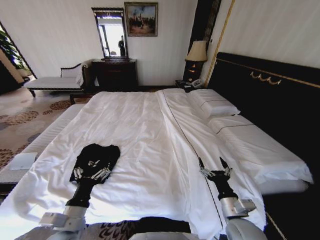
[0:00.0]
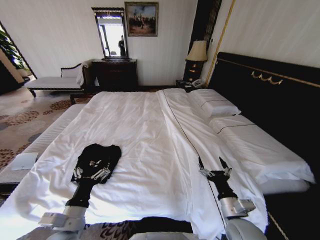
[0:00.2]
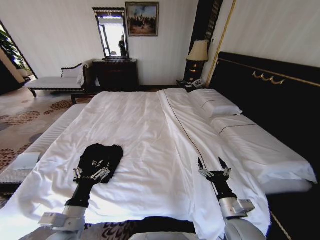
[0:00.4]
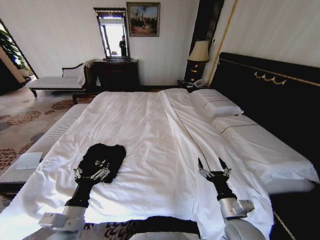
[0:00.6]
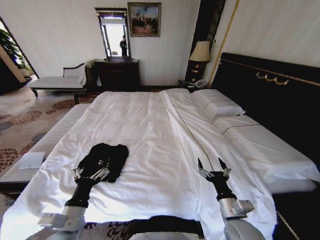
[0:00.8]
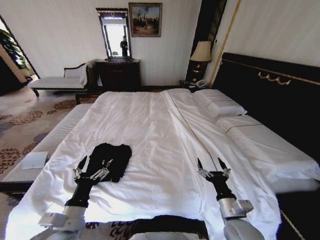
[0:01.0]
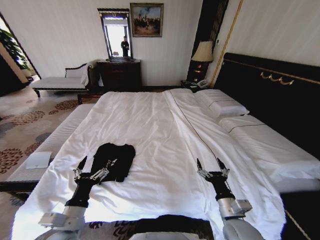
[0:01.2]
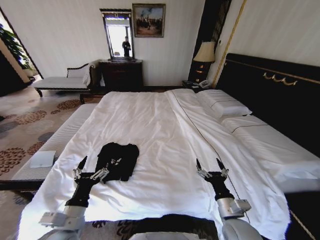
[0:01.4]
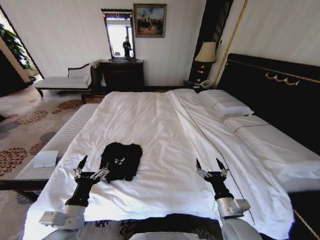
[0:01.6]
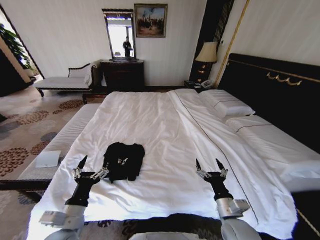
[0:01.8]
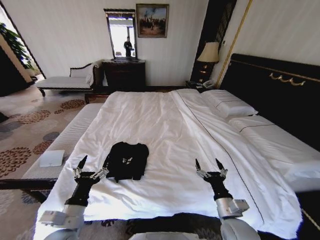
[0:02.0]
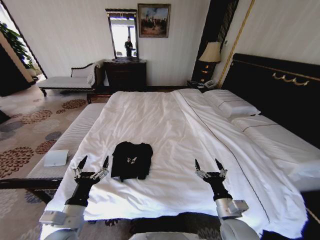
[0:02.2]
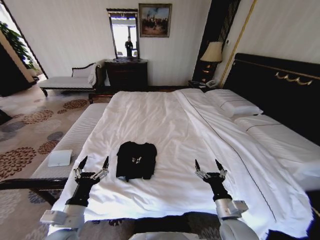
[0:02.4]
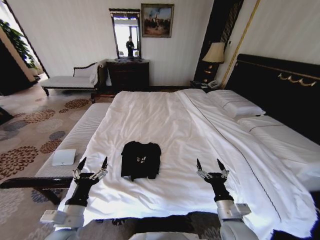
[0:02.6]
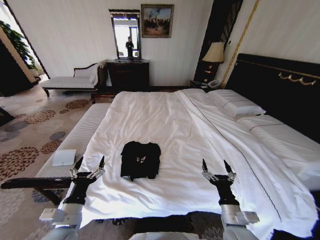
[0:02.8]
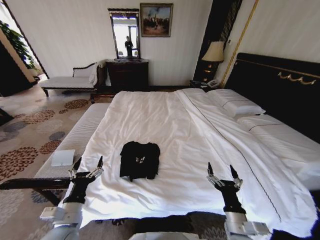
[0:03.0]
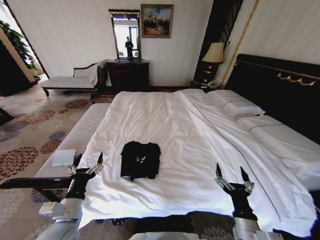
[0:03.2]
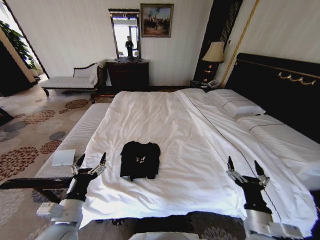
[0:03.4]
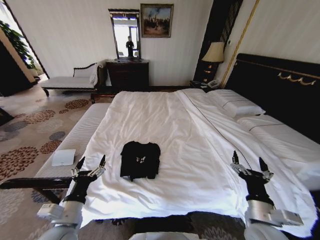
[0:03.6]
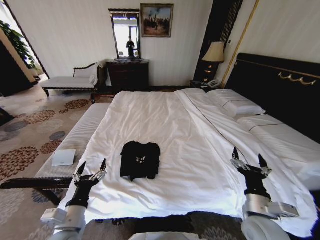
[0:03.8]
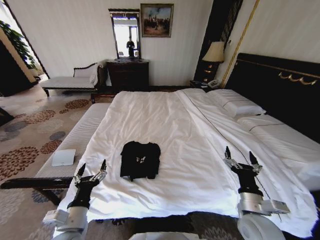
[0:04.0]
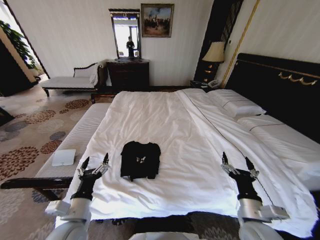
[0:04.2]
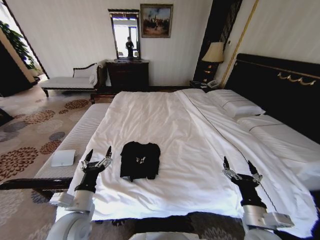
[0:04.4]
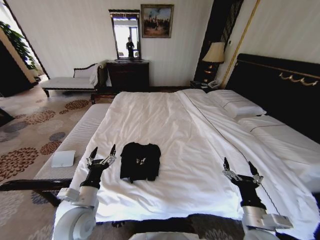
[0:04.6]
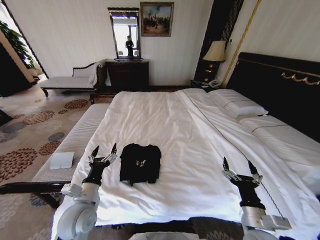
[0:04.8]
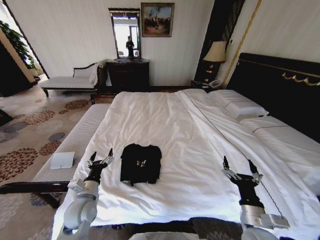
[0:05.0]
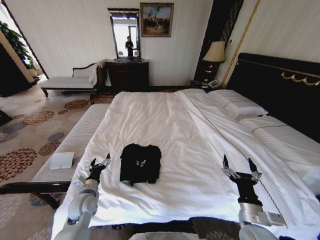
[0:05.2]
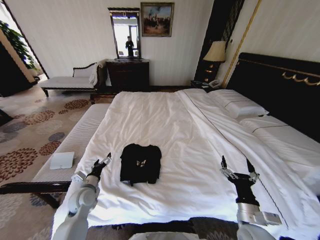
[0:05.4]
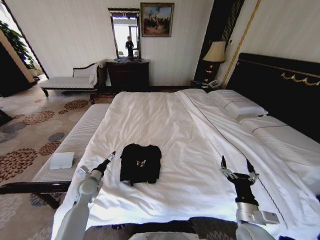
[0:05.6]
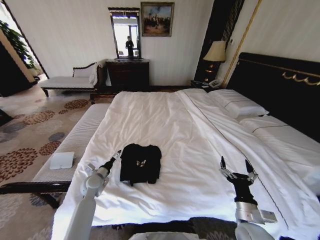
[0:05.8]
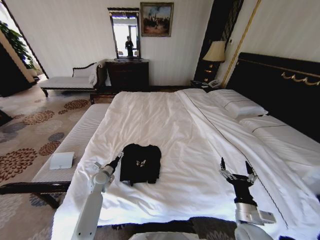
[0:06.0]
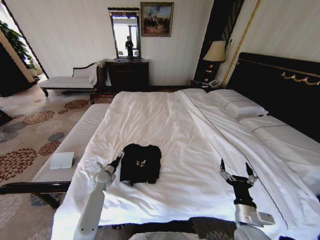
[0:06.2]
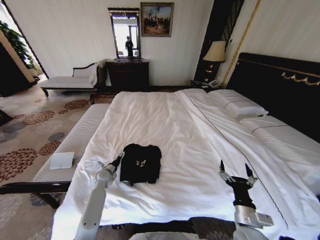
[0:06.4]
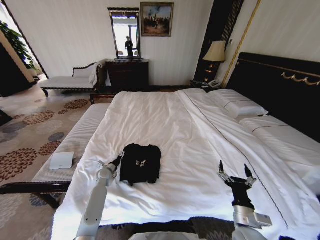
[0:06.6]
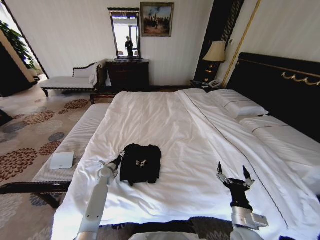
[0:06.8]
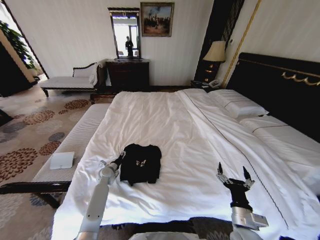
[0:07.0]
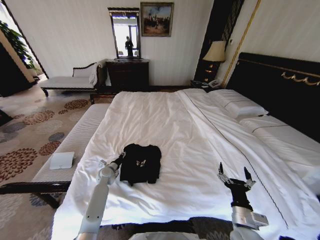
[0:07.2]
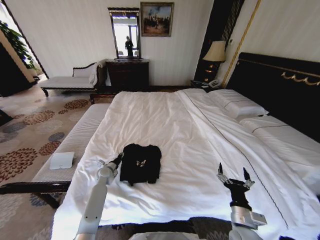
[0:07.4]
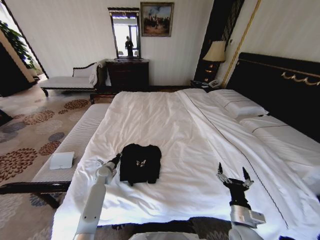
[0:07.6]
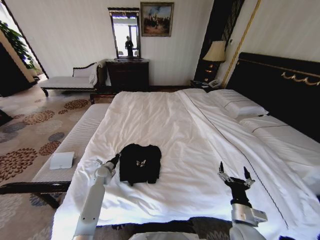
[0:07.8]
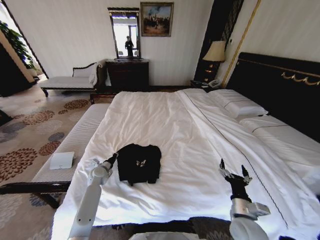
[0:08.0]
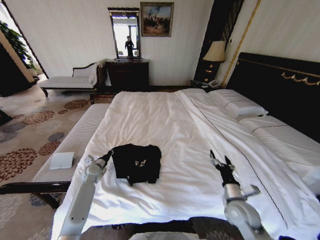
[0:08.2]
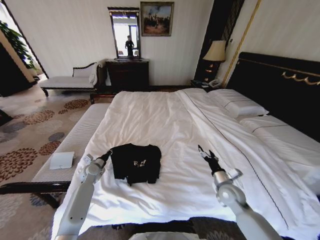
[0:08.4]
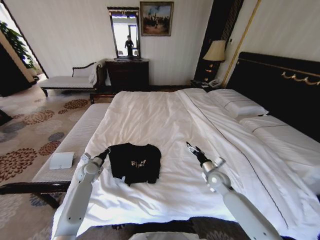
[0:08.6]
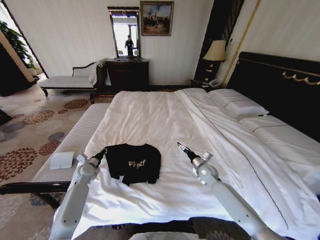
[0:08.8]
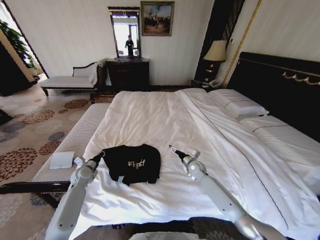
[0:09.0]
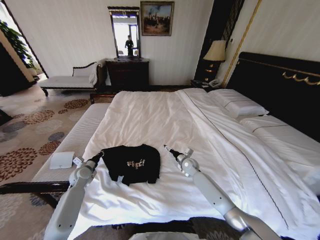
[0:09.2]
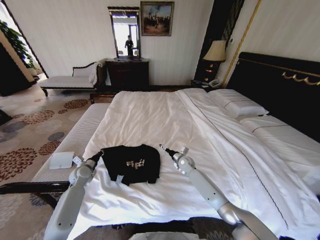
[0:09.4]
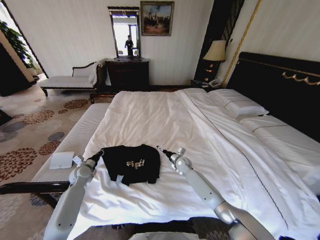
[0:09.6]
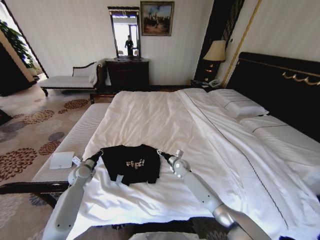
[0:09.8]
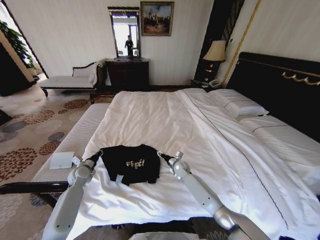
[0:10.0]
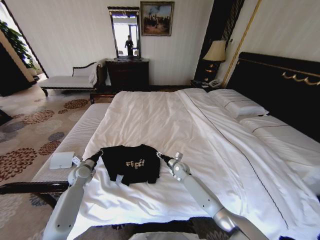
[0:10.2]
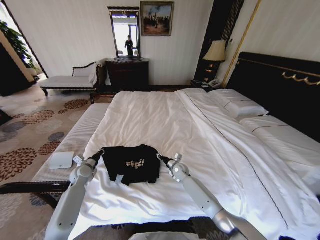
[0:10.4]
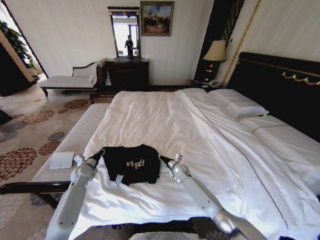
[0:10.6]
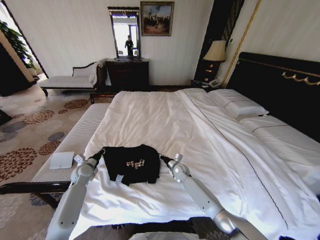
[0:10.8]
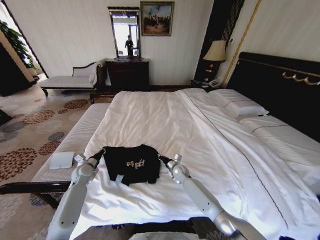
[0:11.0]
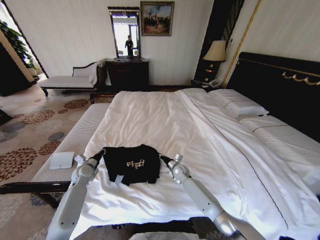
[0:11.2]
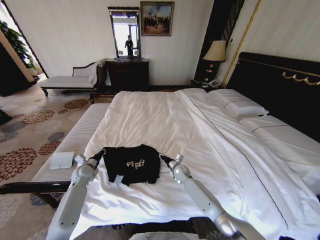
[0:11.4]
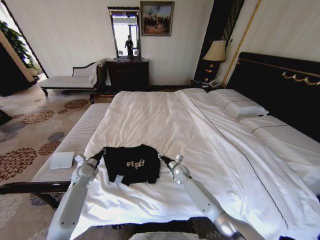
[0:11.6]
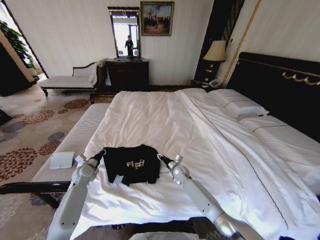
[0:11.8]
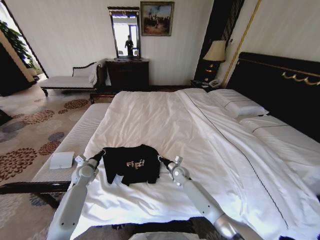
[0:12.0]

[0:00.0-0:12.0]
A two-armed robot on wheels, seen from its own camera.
Task of the whole recording: Fold the clothes on the bed.
0:03.0 to 0:04.4: The left gripper shifts by roughly 5 cm; the right gripper changes place by some 5 cm.
0:04.4 to 0:06.0: The left gripper is displaced forward and downward by about 25 cm.
0:06.0 to 0:07.6: The left gripper closes up.
0:07.6 to 0:09.0: The right gripper goes some 30 cm forward. Meanwhile the left gripper is displaced to the left by some 10 cm.
0:09.0 to 0:10.4: The right gripper goes approximately 10 cm to the left, and closes.
0:10.4 to 0:12.0: The grippers make only small movements.

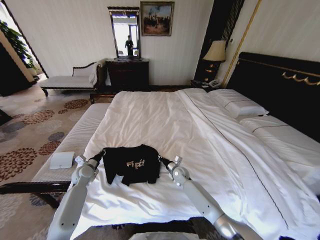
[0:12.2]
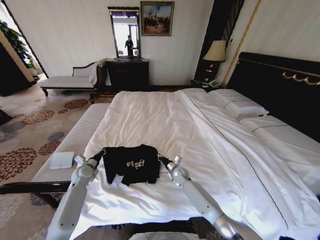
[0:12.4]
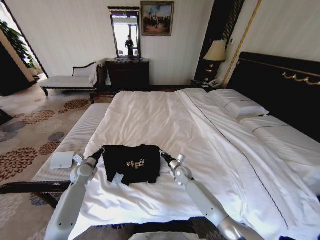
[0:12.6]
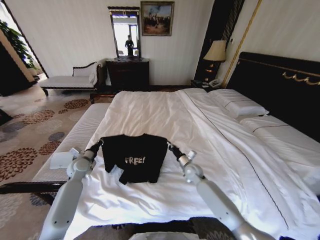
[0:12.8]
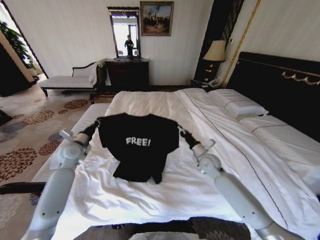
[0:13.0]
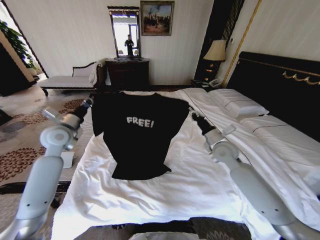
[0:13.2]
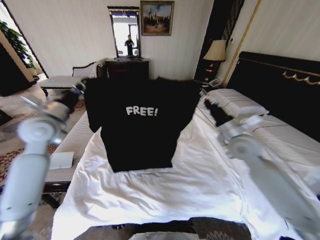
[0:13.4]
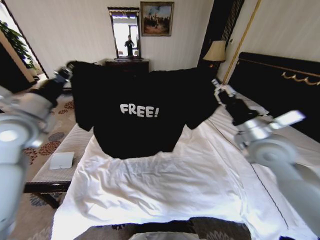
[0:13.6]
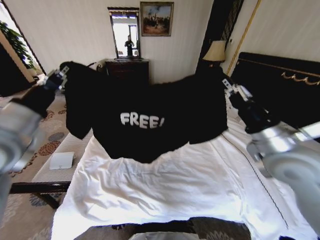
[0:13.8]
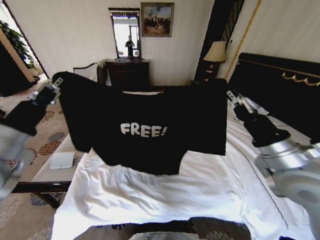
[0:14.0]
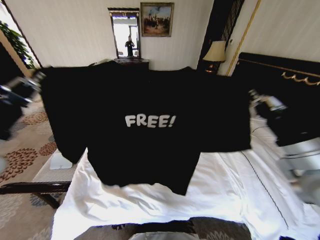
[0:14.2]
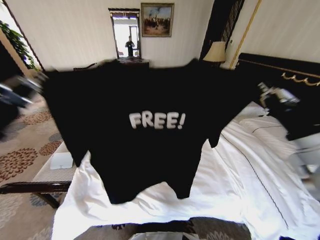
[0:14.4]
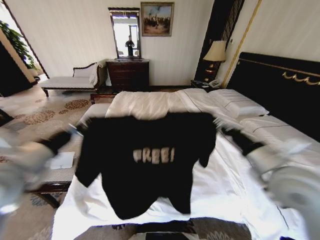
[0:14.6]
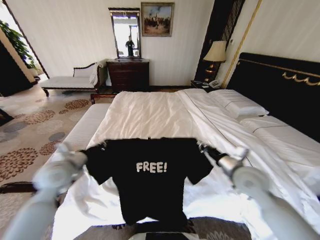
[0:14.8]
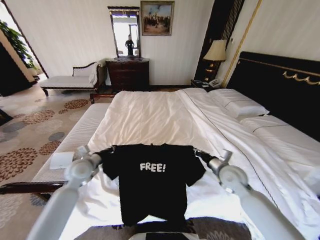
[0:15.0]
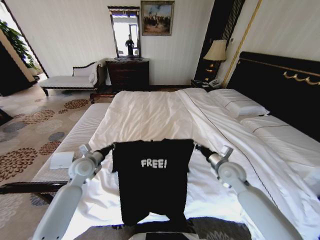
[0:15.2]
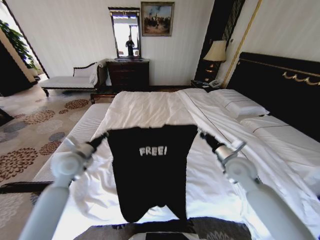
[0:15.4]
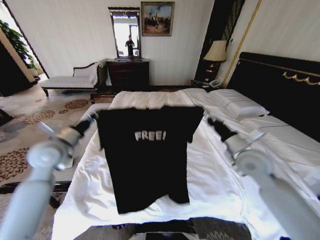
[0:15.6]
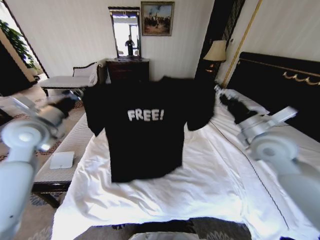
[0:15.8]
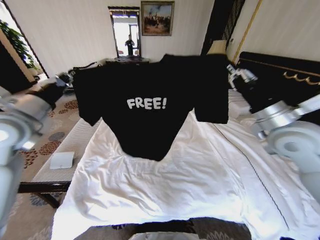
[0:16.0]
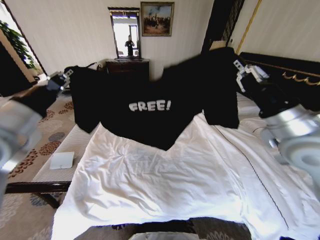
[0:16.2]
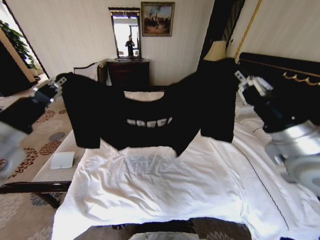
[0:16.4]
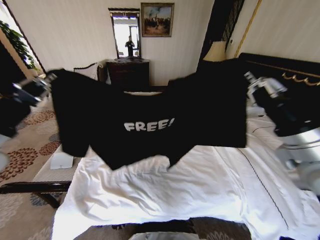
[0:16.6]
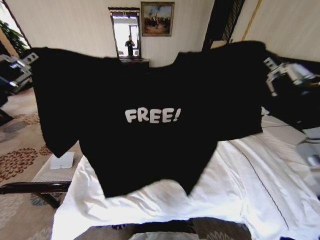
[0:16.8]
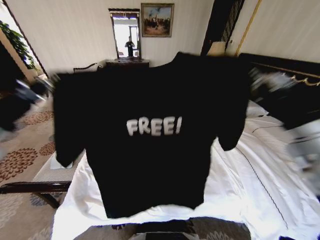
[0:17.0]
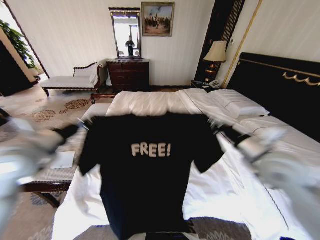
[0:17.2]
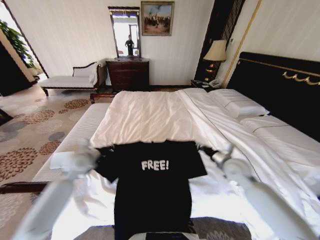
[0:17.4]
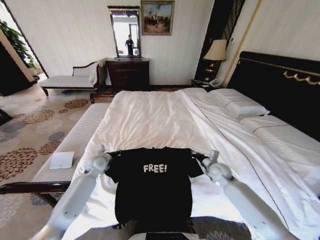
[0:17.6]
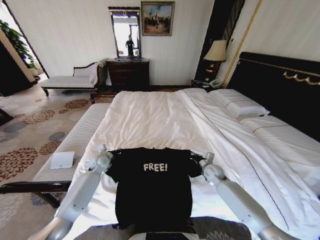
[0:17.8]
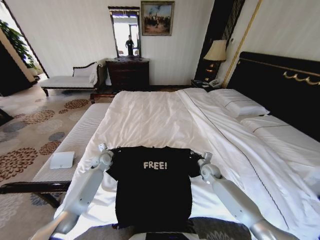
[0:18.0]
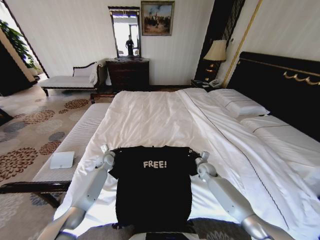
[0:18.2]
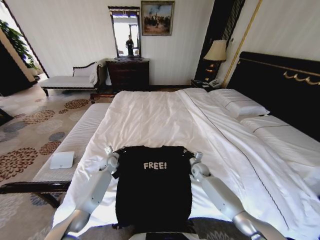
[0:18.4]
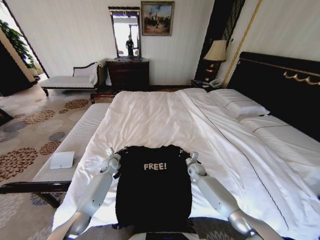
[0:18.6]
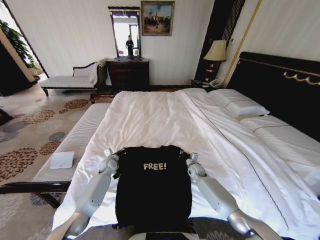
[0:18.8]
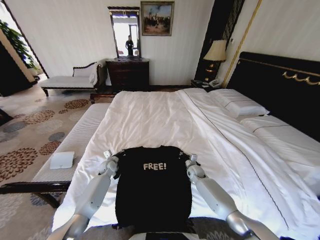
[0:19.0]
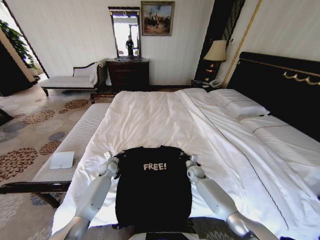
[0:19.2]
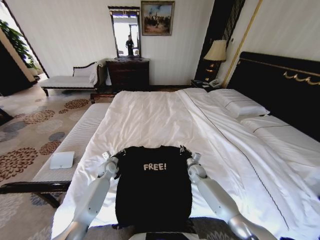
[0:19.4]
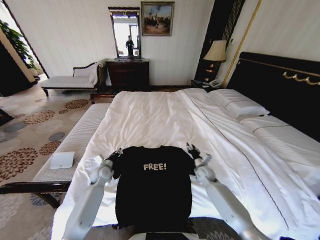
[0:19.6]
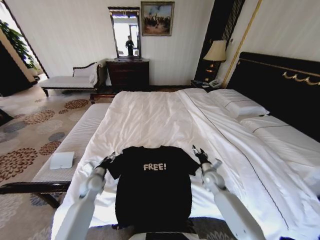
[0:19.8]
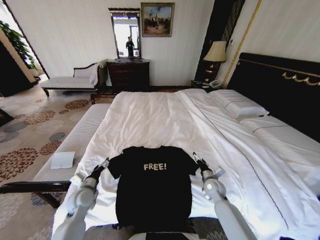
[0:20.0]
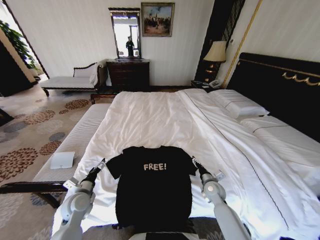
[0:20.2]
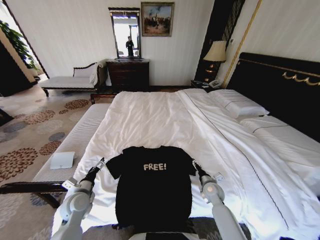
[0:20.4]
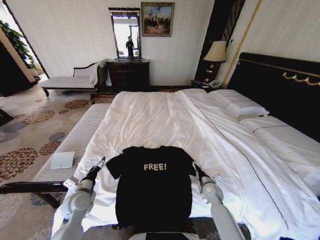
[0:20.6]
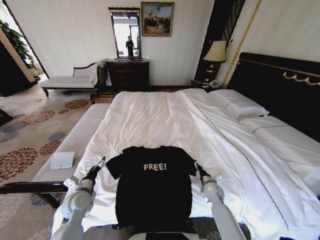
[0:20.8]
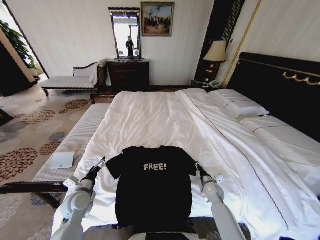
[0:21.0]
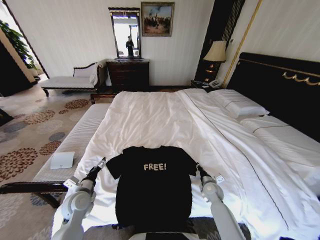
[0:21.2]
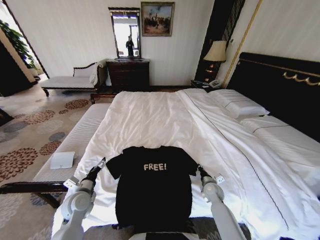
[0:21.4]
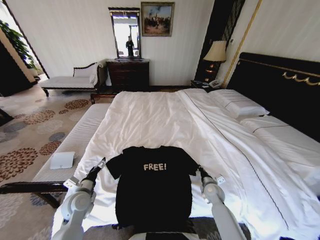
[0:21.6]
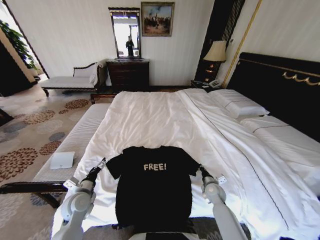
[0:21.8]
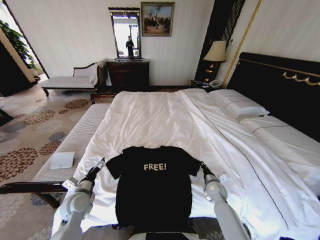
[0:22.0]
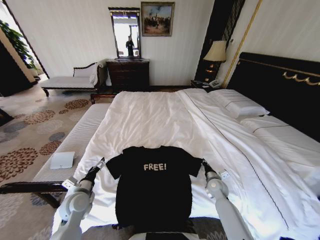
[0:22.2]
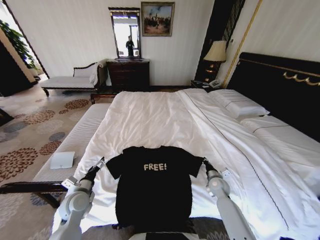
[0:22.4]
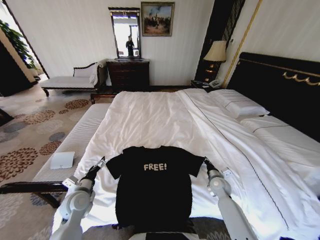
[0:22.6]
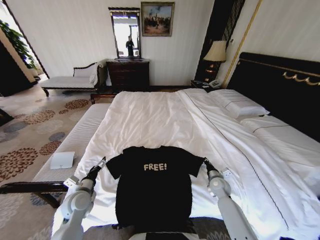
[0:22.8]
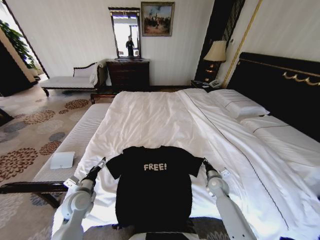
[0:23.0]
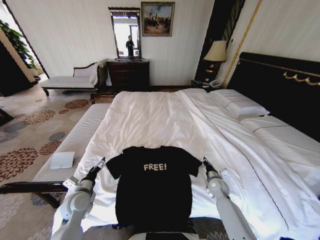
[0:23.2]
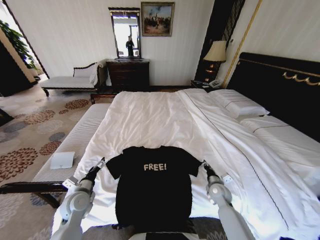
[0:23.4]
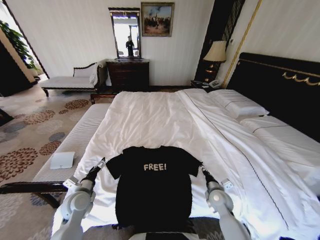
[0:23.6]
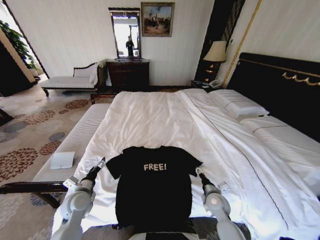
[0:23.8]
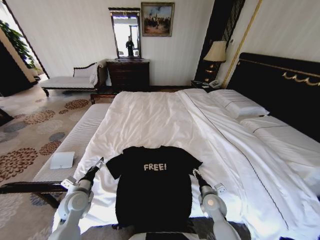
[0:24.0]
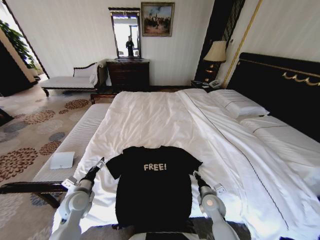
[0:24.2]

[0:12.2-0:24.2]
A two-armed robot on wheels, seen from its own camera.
Task of the whole recording: Fold the clothes on the bed.
0:12.2 to 0:13.8: The left gripper heads upward, covering approximately 35 cm. The right gripper travels upward and backward by approximately 40 cm.
0:13.8 to 0:15.2: Both grippers travel together downward and forward, some 25 cm.
0:15.2 to 0:16.6: Both grippers travel together upward and backward, approximately 30 cm.
0:16.6 to 0:18.2: The two grippers go approximately 50 cm downward and forward.
0:18.2 to 0:19.8: The left gripper travels backward by about 15 cm, and opens up. The right gripper heads backward, covering roughly 5 cm, and opens.
0:19.8 to 0:21.2: The right gripper moves about 5 cm, and opens, then closes once more, while the left gripper shifts some 10 cm backward.
0:21.2 to 0:22.6: The grippers make only small movements.
0:22.6 to 0:24.2: The right gripper shifts approximately 10 cm backward and to the left, and opens its fingers.
